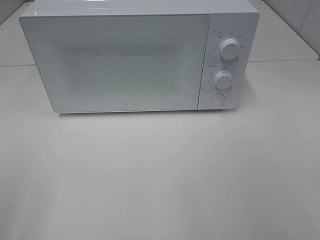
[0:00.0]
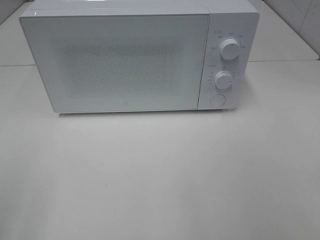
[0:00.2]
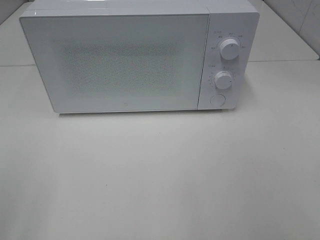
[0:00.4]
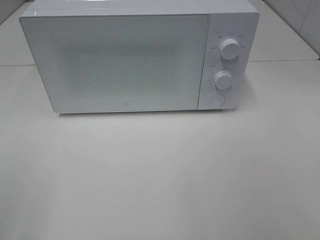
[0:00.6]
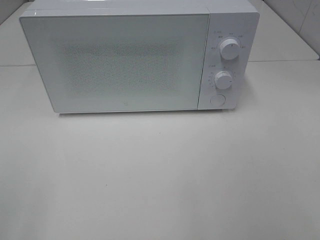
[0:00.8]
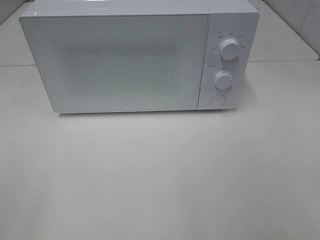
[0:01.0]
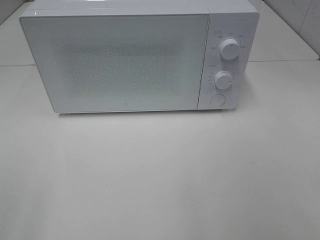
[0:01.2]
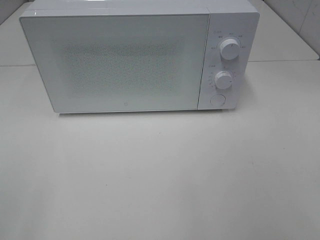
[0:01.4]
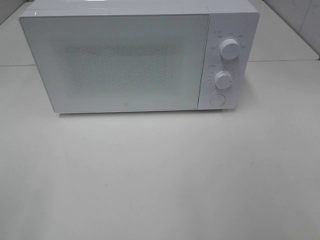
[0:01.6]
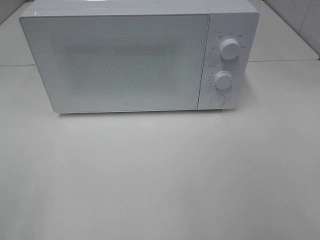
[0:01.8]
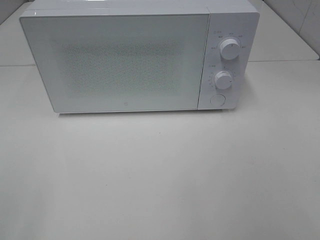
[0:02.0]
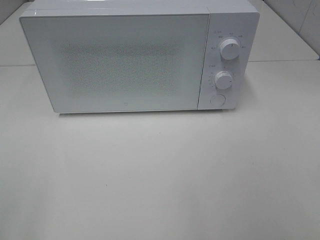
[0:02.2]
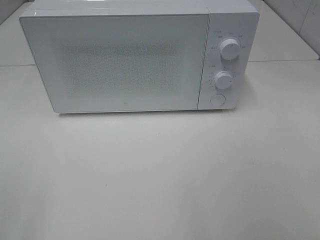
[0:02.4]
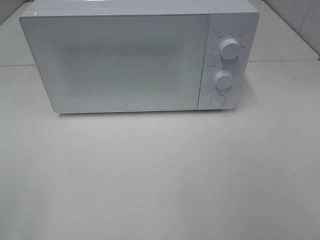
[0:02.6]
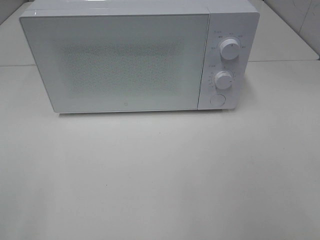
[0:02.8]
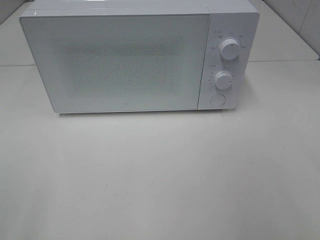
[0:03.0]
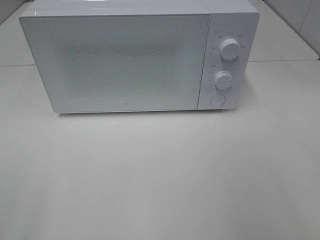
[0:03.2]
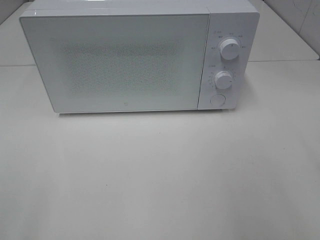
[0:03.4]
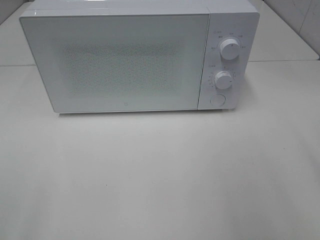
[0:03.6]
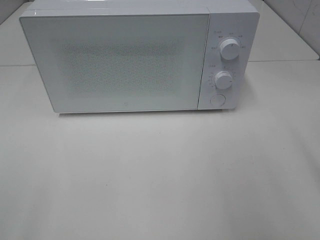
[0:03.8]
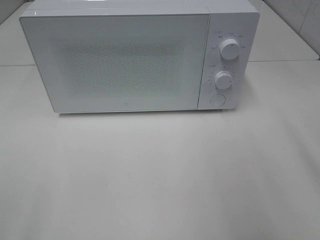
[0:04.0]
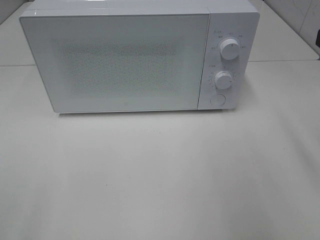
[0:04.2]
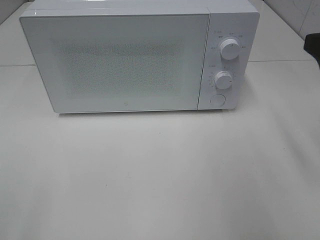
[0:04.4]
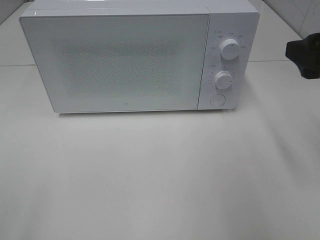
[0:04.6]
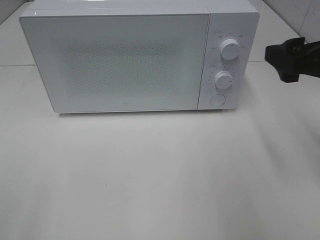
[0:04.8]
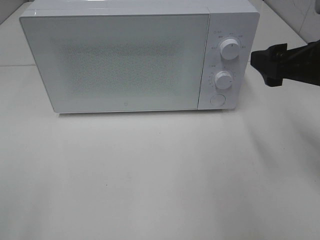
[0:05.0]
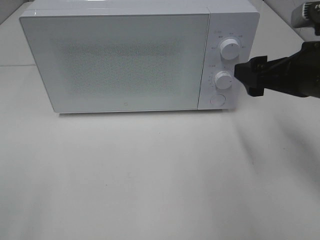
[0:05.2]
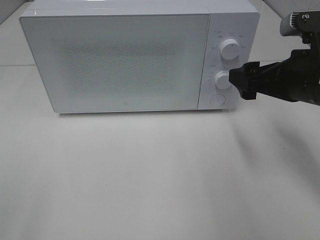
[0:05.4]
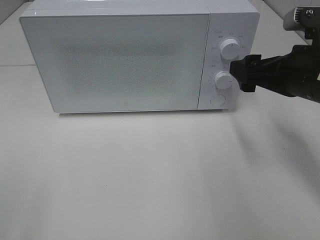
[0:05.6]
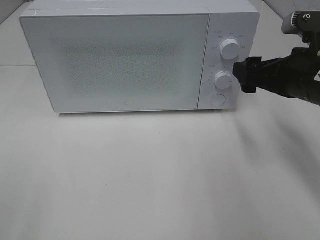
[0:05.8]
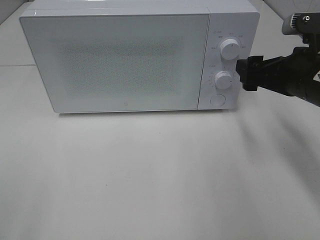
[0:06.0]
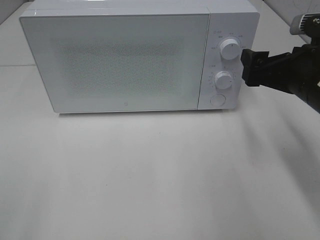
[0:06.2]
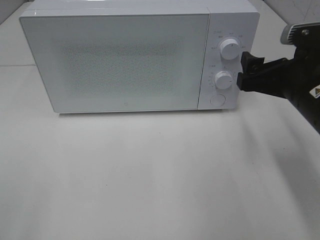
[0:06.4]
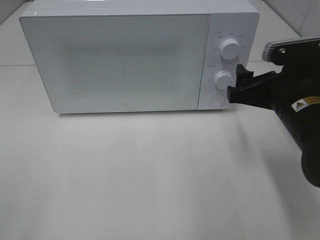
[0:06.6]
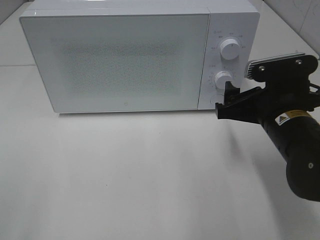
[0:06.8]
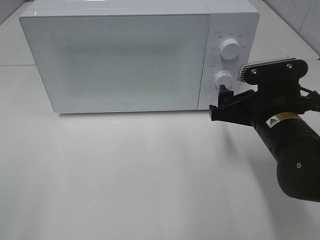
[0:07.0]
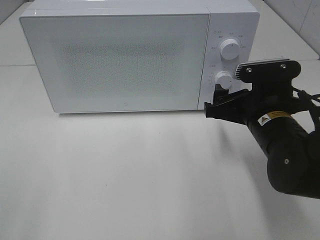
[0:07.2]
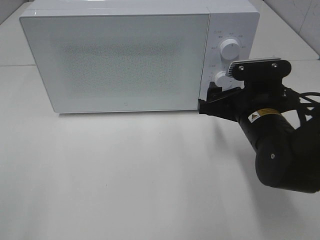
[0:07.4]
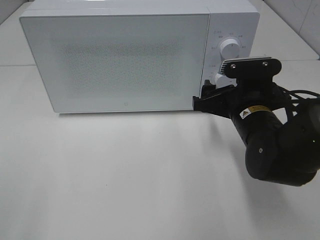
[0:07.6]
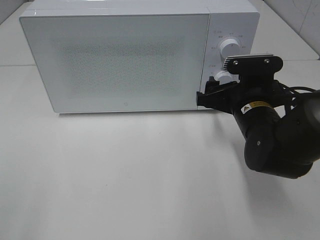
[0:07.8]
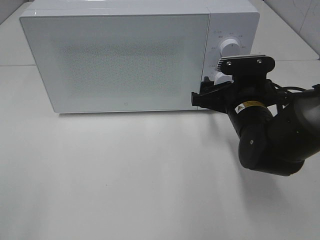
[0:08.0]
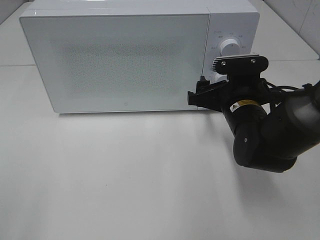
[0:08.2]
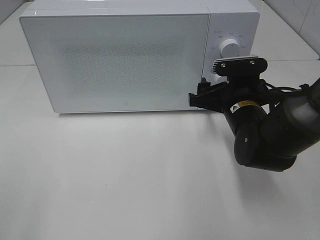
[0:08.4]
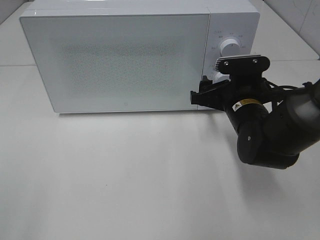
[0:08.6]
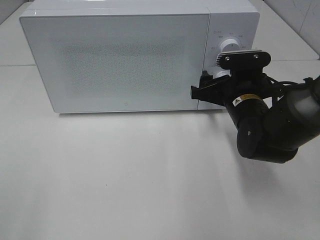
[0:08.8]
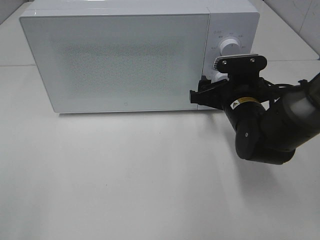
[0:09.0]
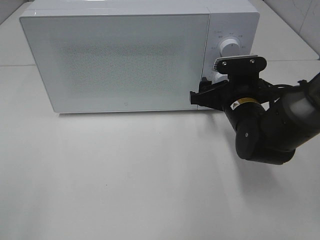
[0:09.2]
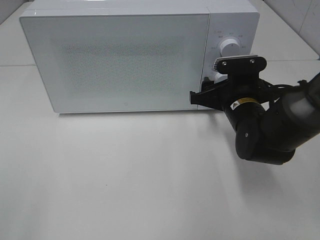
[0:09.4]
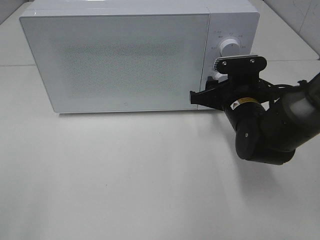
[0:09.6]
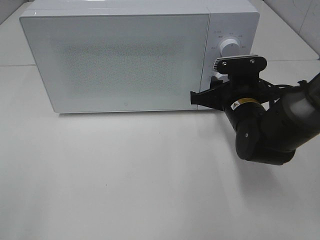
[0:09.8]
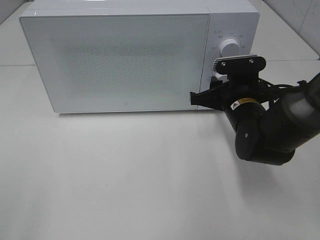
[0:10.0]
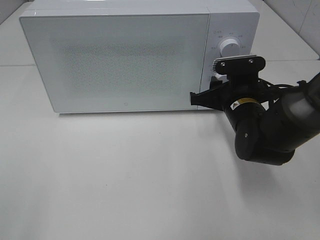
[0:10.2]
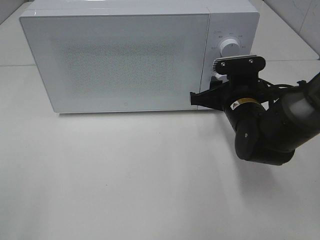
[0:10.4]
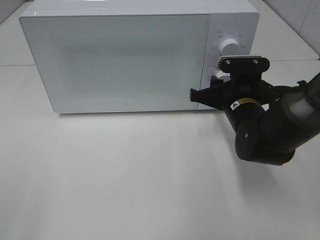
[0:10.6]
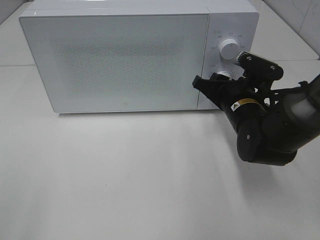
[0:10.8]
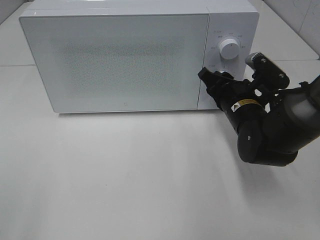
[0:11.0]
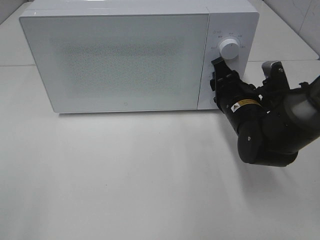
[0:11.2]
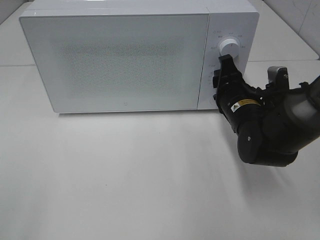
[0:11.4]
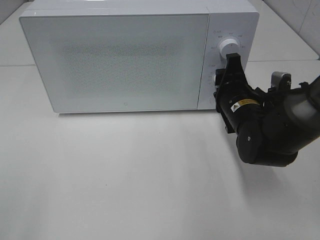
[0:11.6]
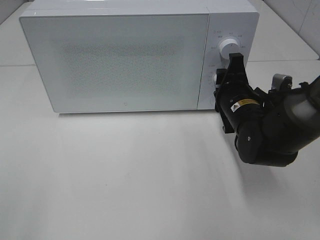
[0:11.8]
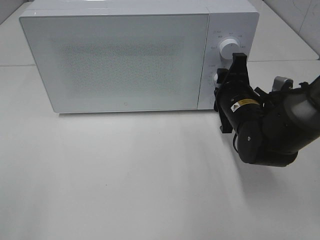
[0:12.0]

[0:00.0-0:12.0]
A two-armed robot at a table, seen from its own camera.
Task of the whole recording: Heat the burger.
0:04.4 to 0:06.0: The right gripper heads downward, forward and to the left, covering approximately 10 cm.
0:06.0 to 0:07.6: The right gripper shifts some 10 cm to the left and downward.
0:07.6 to 0:09.0: The grippers make only small movements.
0:09.0 to 0:10.4: The right gripper closes.

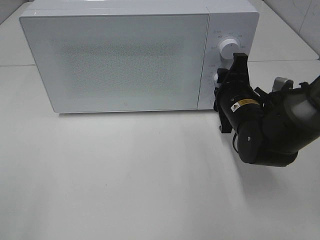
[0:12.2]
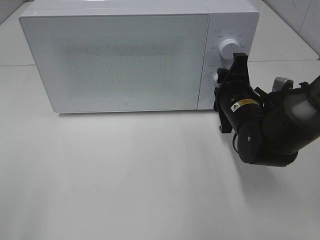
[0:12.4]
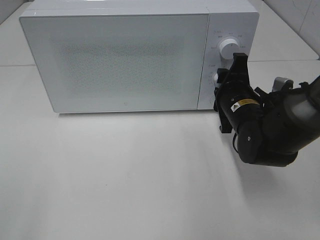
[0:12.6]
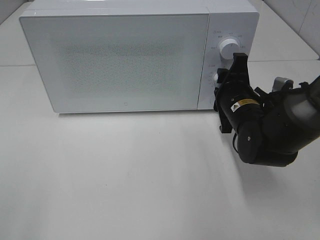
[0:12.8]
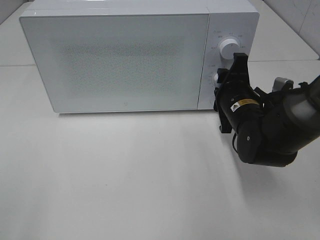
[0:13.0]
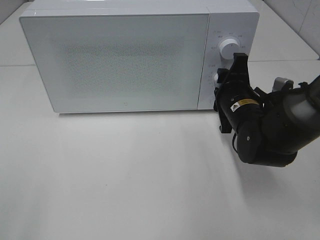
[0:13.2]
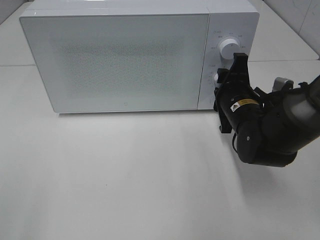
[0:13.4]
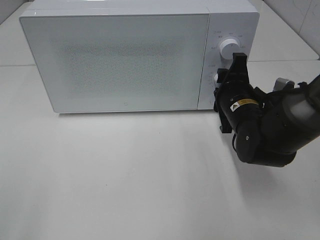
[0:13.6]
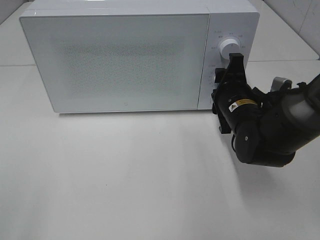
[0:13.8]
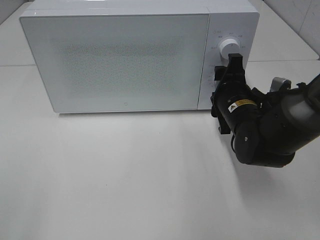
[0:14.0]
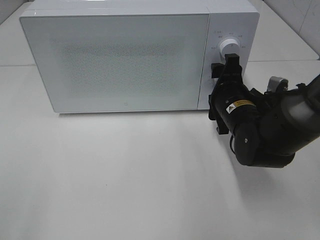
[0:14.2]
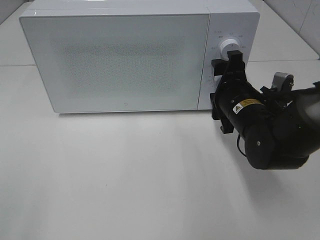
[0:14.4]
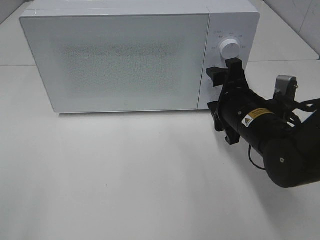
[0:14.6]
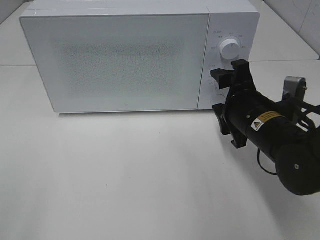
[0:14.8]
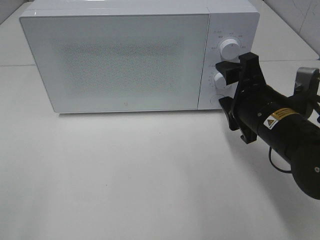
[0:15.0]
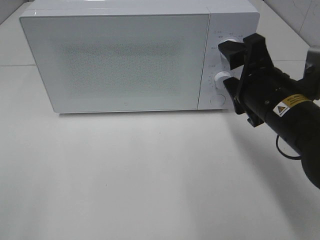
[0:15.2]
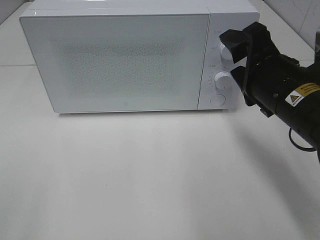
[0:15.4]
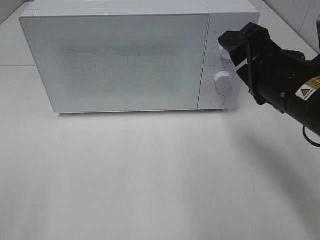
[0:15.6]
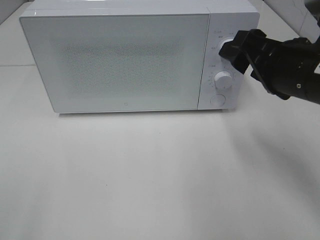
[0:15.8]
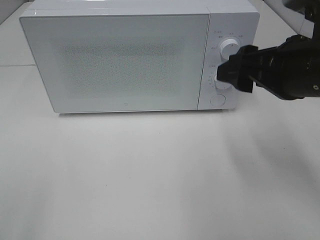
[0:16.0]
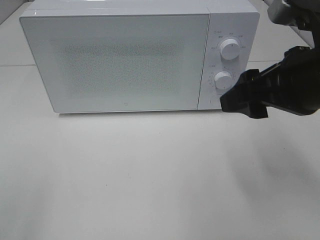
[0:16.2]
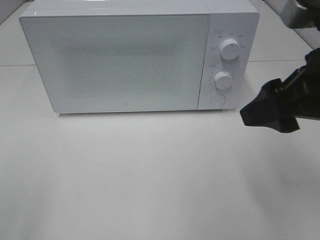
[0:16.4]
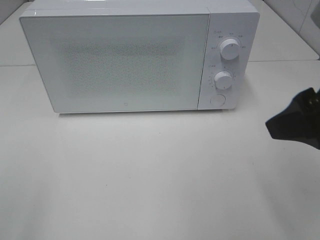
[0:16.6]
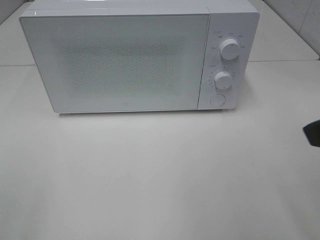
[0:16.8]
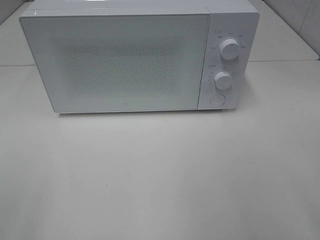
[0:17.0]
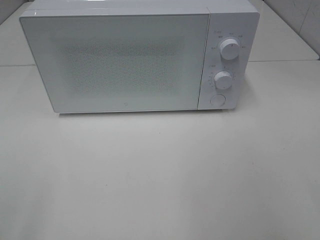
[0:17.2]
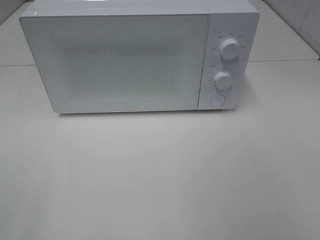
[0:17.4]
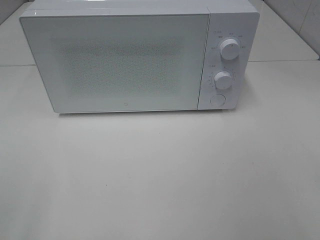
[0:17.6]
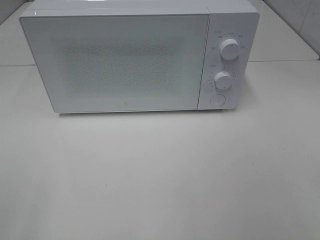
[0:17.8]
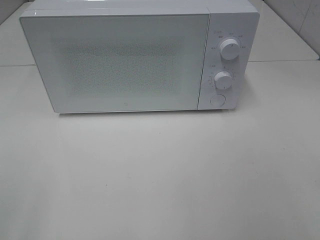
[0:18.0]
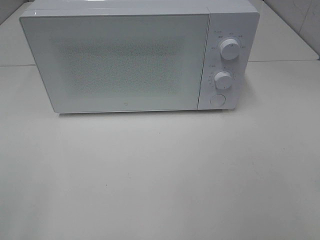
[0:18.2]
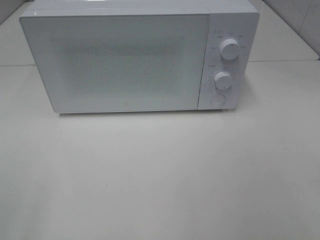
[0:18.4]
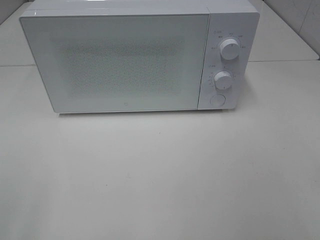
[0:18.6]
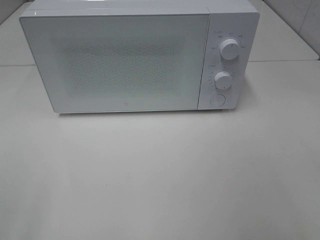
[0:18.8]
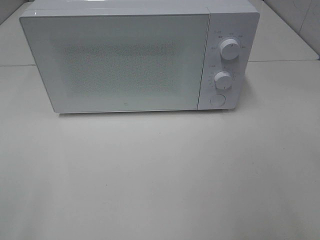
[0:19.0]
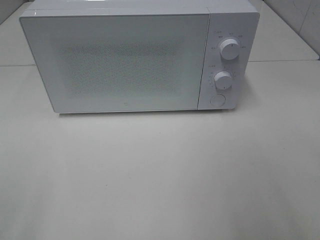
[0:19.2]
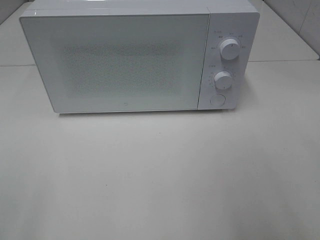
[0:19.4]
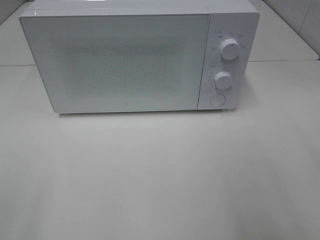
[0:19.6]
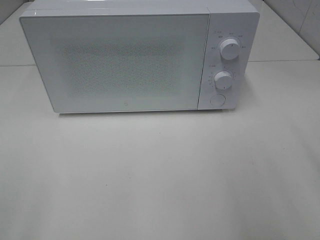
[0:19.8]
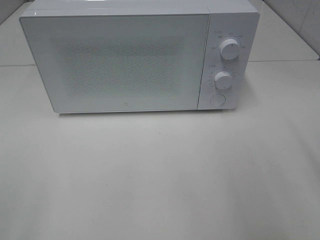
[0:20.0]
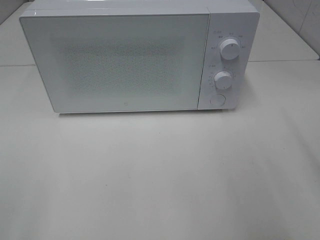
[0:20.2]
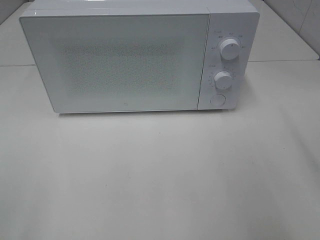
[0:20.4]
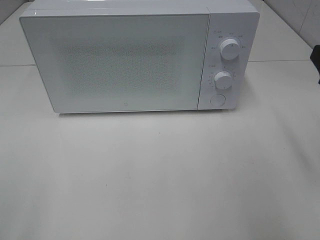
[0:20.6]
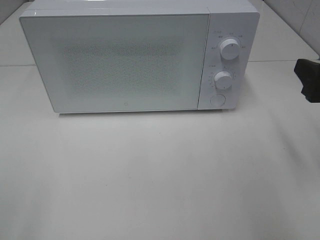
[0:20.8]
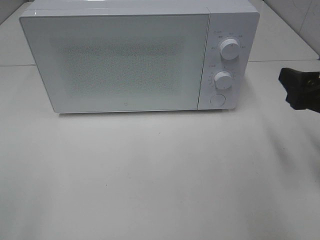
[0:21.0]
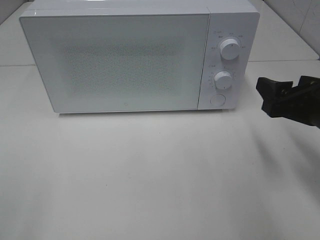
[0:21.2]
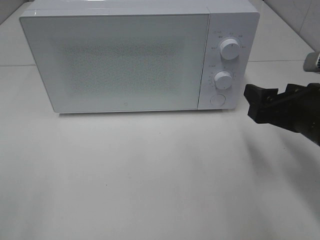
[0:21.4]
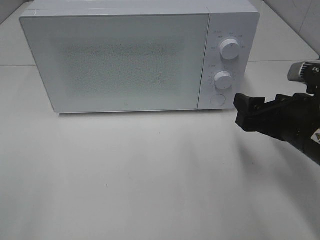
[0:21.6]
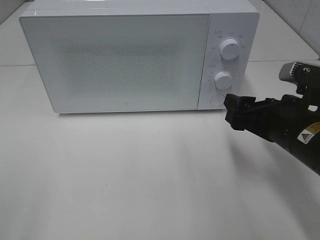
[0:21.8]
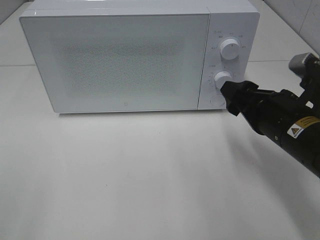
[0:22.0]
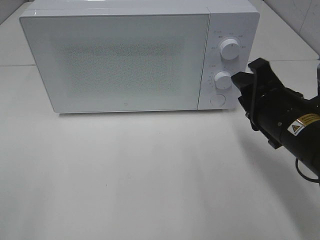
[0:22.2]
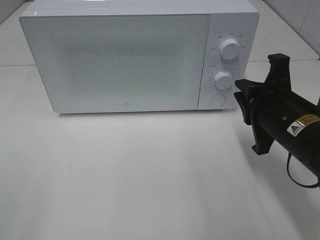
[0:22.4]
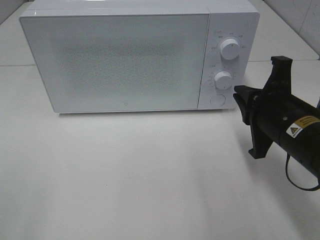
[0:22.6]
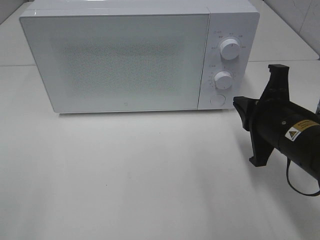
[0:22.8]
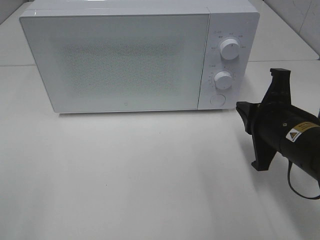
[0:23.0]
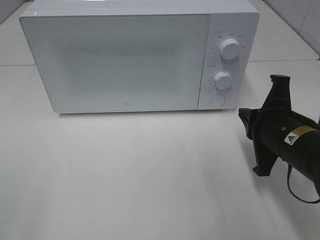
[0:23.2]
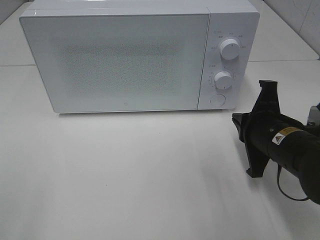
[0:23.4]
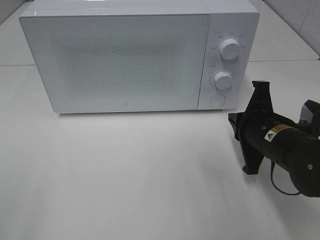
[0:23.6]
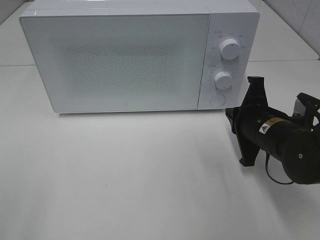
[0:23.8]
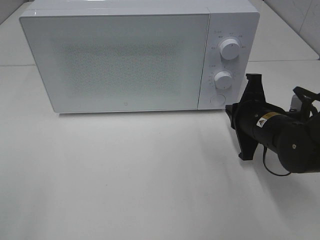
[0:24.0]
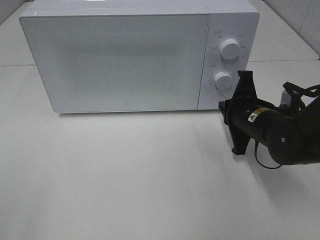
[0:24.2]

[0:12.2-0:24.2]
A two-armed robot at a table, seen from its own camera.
Task of the whole recording: Heat the burger.
0:12.2 to 0:13.8: Both grippers stay put.
0:13.8 to 0:15.2: The right gripper heads backward and upward, covering roughly 10 cm.
0:15.2 to 0:16.6: The right gripper is displaced upward and backward by about 15 cm.
0:16.6 to 0:18.2: The right gripper moves backward and to the right, approximately 20 cm.
0:19.8 to 0:21.2: The right gripper is displaced downward and forward by about 10 cm.
0:21.2 to 0:22.6: The right gripper is displaced to the left by some 5 cm, and closes its fingers.
0:22.6 to 0:24.2: The right gripper moves forward and downward, approximately 10 cm.
